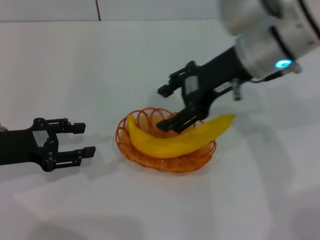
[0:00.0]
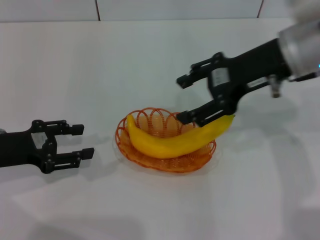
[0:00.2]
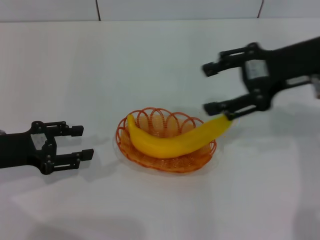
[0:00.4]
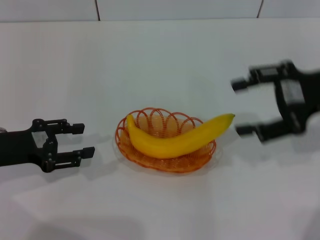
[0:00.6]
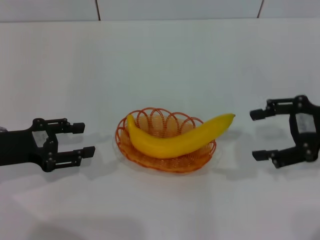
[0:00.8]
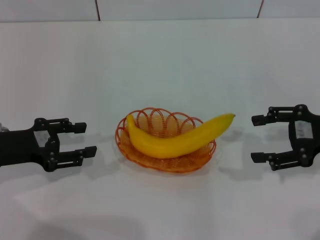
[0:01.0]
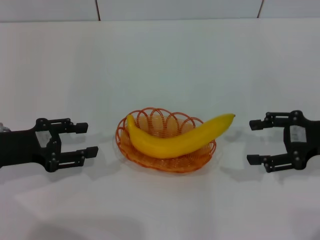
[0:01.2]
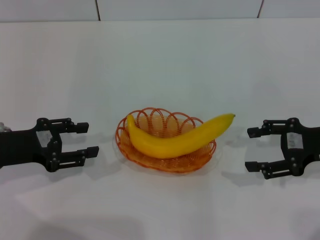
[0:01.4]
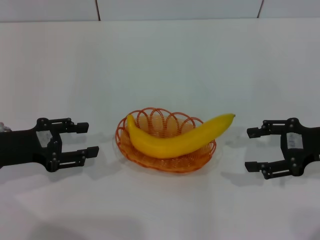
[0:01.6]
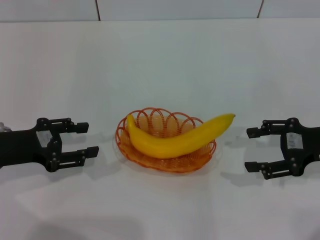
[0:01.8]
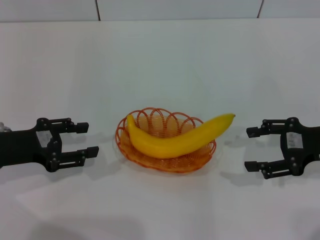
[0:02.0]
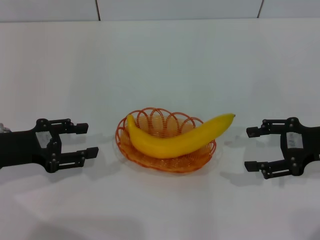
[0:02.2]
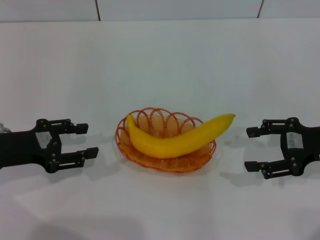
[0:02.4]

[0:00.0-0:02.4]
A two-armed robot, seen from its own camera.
0:00.0 to 0:01.2: The right gripper shifts about 20 cm to the right, downward and backward.
0:01.2 to 0:02.4: Neither gripper changes place.
